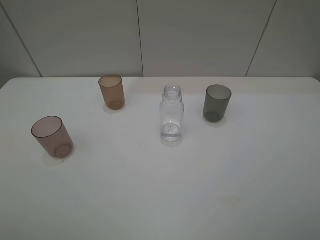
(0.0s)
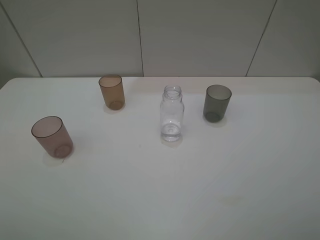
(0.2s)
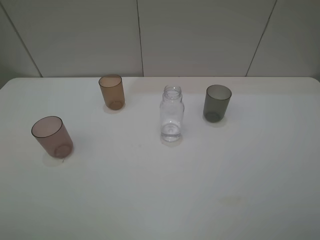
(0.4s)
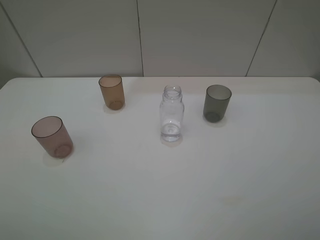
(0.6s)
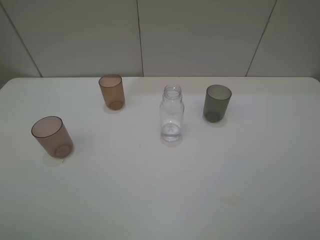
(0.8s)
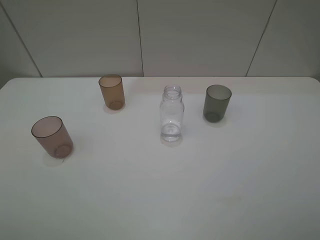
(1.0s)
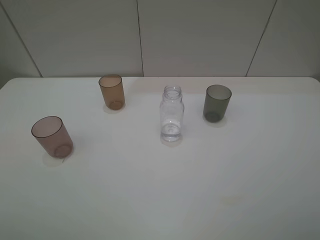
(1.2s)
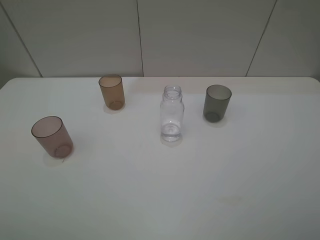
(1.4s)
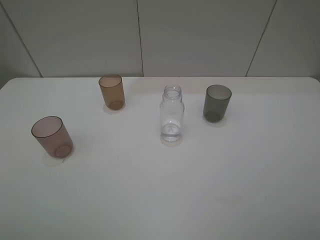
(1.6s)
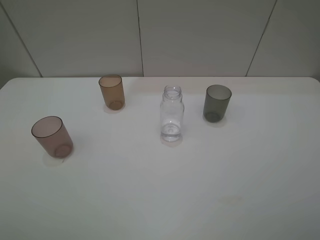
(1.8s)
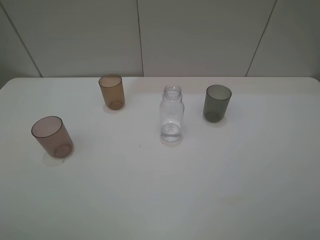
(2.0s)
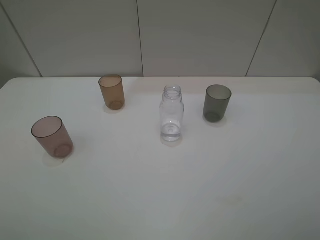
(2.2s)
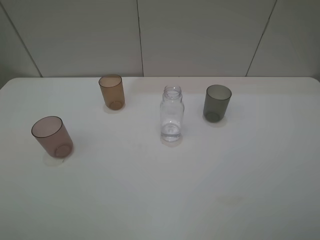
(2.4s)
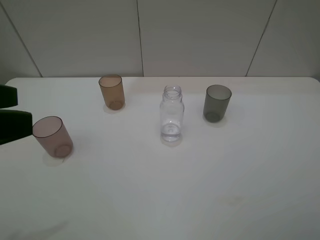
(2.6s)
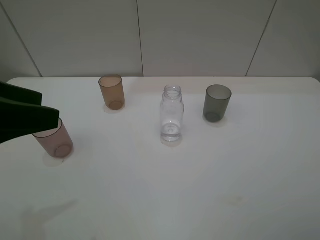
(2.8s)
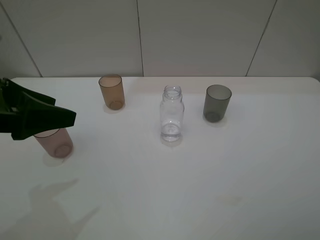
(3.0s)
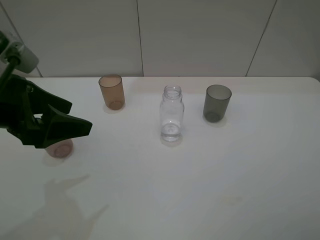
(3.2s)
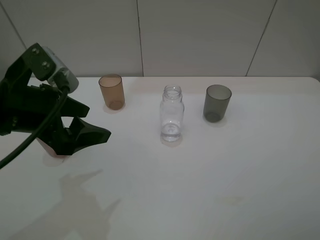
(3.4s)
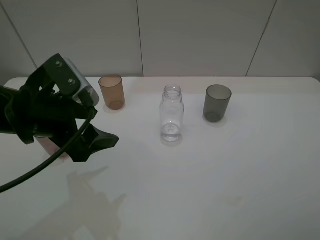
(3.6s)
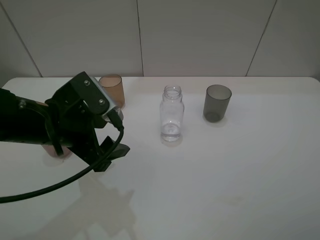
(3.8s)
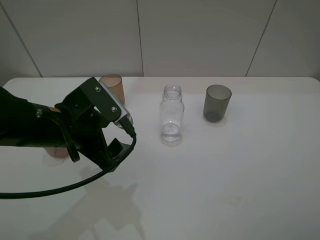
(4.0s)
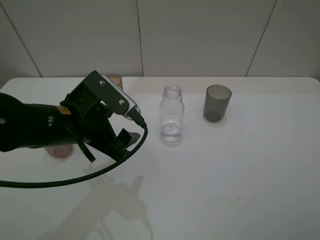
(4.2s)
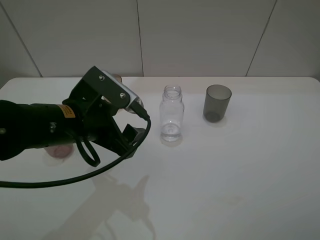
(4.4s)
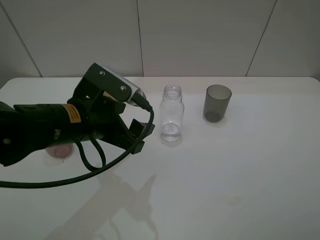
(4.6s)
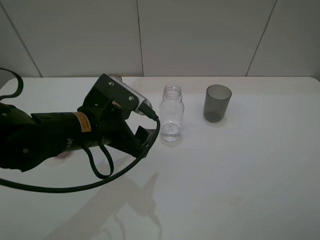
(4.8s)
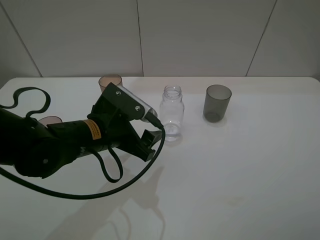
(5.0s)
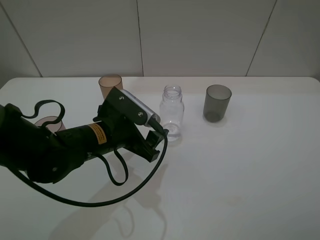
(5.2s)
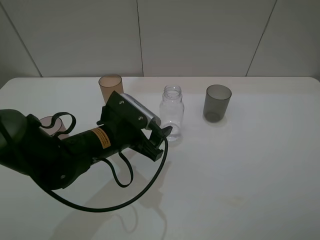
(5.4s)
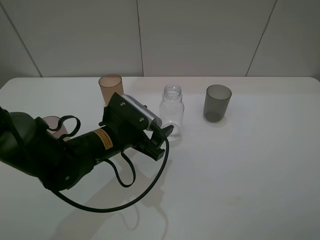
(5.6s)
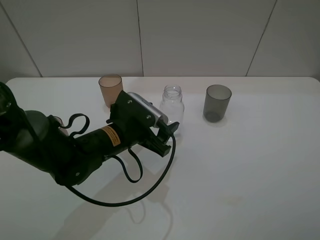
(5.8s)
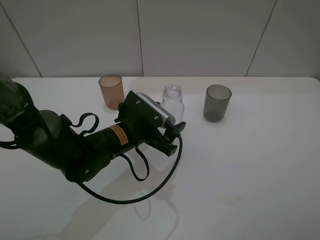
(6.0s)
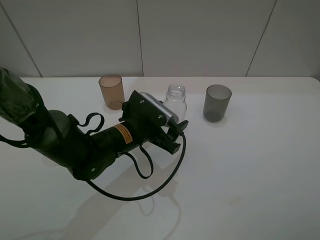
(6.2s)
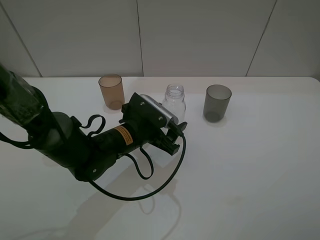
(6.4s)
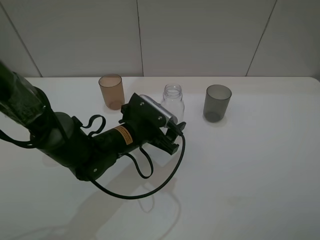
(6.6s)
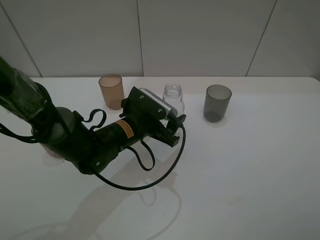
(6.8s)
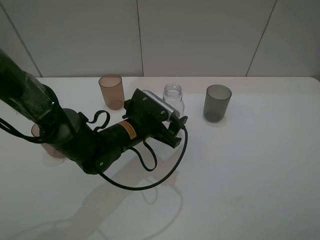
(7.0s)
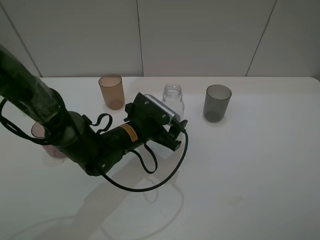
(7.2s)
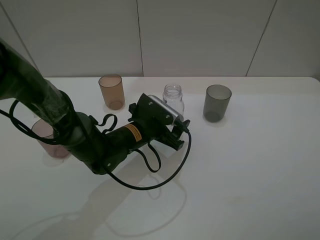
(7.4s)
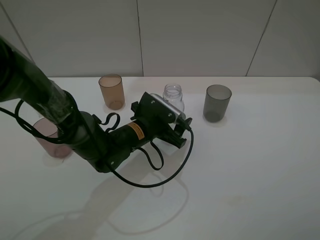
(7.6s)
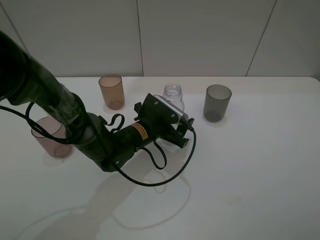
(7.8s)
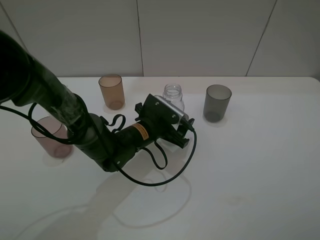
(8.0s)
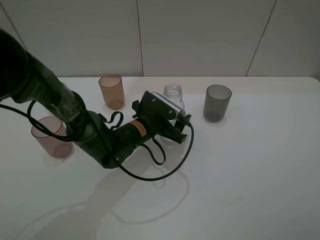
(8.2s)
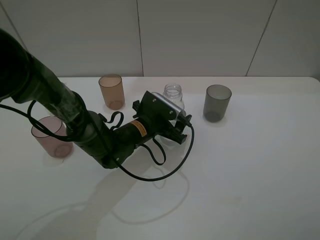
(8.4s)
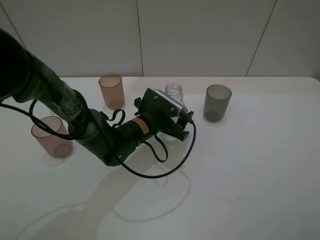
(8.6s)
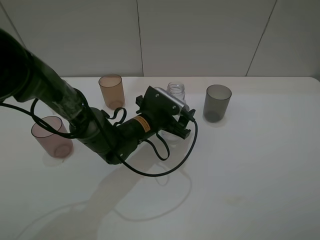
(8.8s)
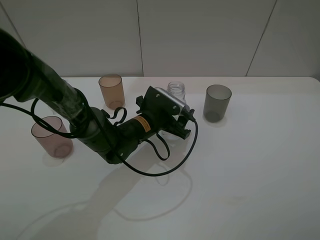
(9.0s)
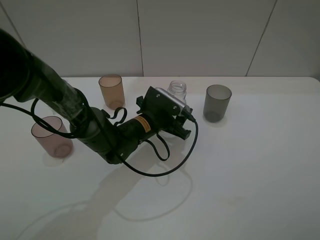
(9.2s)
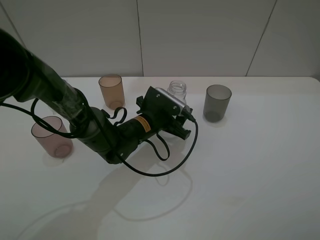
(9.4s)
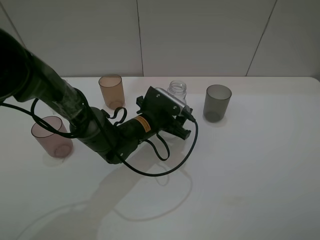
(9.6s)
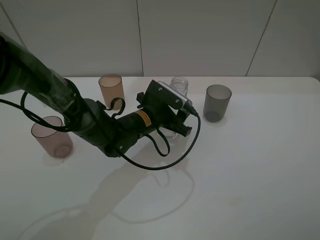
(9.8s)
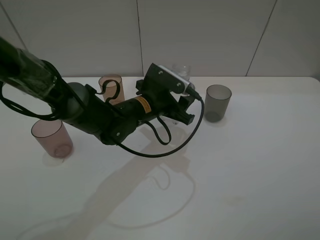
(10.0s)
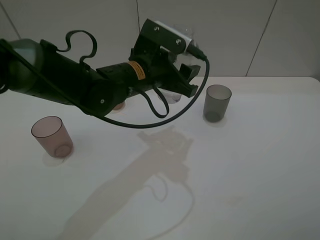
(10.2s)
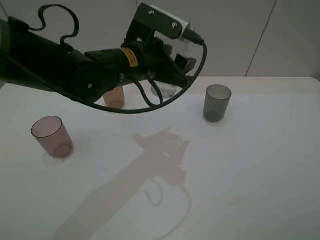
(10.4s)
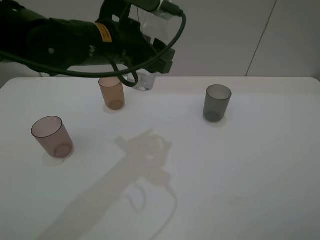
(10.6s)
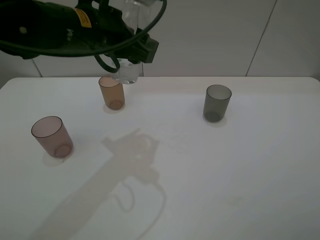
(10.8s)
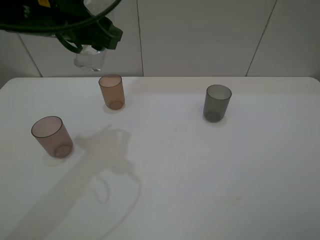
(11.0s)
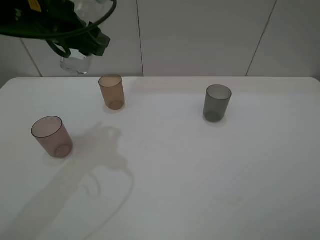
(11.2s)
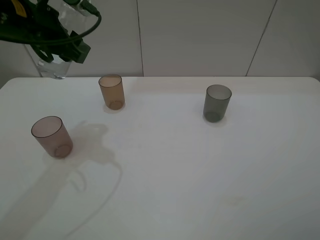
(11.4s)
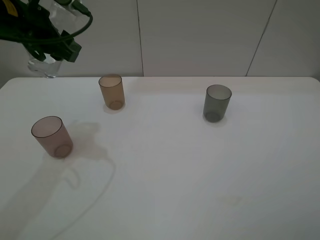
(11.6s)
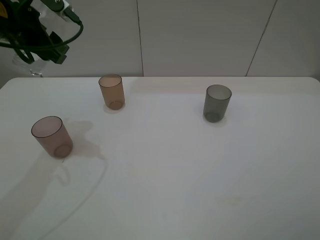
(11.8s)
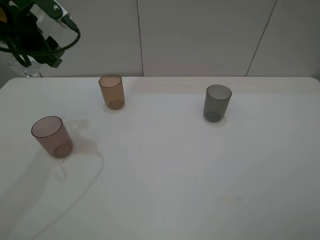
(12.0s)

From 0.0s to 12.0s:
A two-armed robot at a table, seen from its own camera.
Task of the whole recording: pick up the bottle filled with water and pour water into the middle cup of the three cups.
Step, from 0.0s to 8.4s: Grasp the transparent bottle with the left gripper.
From 0.0s to 1.6s: Neither gripper changes place.
From 1.6s to 3.0s: The left gripper moves forward, roughly 20 cm.
From 3.0s to 4.4s: The left gripper travels to the right and downward by roughly 15 cm.
From 4.4s to 6.0s: The left gripper shifts about 10 cm downward and to the right.
From 6.0s to 7.6s: The left gripper shifts by about 5 cm.
From 7.6s to 9.0s: The left gripper closes up.
From 9.0s to 10.4s: The left gripper travels upward by about 15 cm, and closes up.
From 10.4s to 12.0s: The left gripper is displaced to the left by approximately 20 cm.

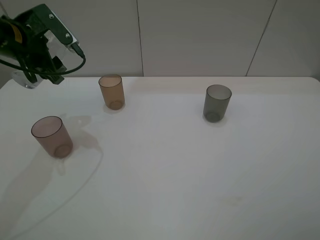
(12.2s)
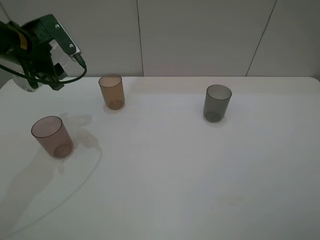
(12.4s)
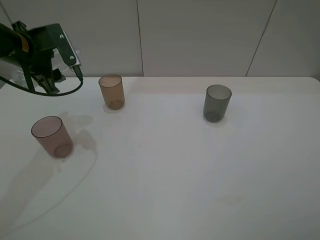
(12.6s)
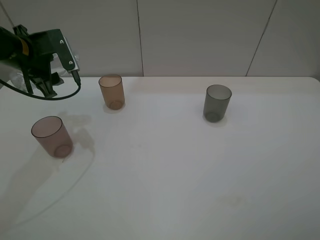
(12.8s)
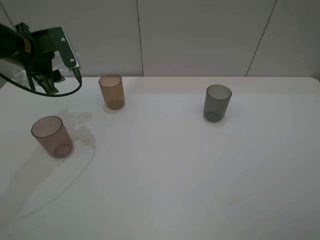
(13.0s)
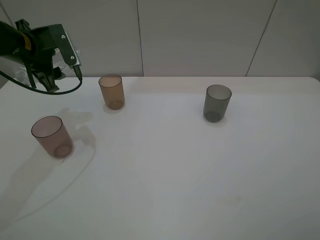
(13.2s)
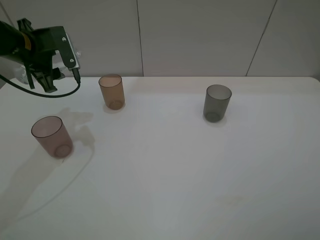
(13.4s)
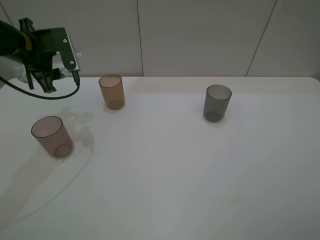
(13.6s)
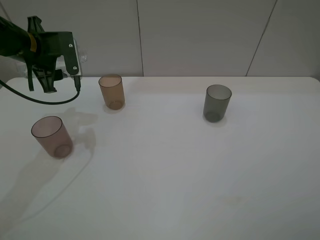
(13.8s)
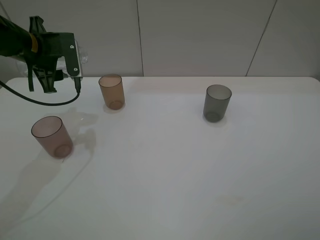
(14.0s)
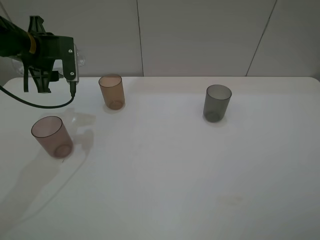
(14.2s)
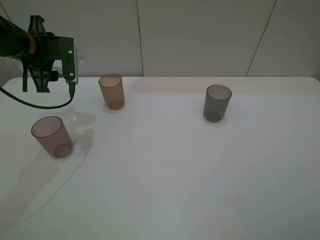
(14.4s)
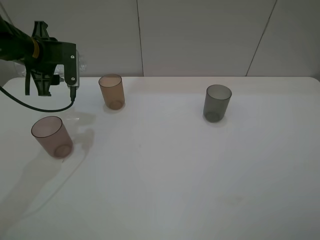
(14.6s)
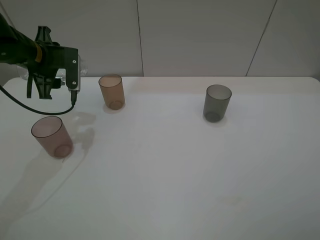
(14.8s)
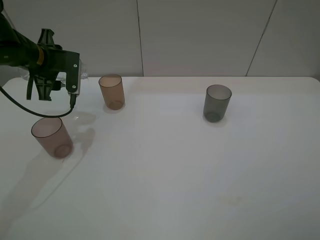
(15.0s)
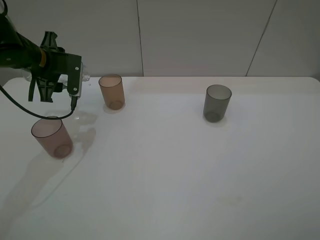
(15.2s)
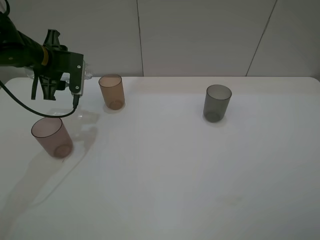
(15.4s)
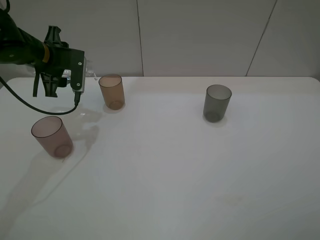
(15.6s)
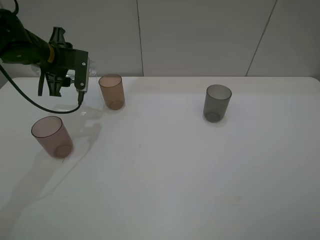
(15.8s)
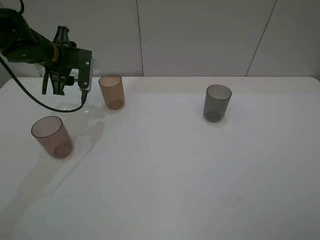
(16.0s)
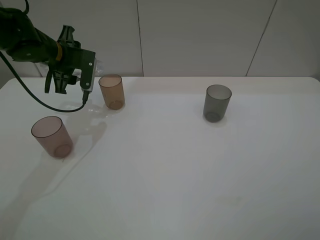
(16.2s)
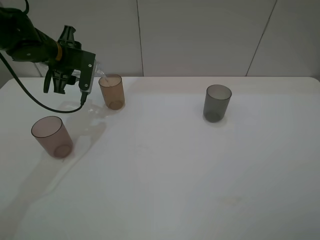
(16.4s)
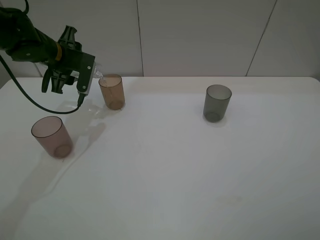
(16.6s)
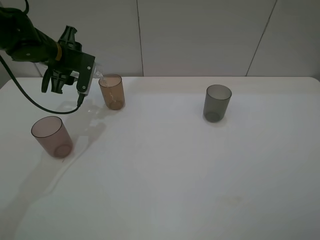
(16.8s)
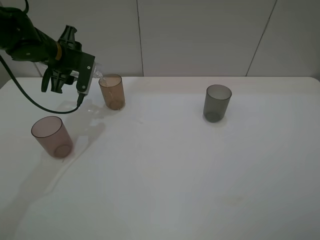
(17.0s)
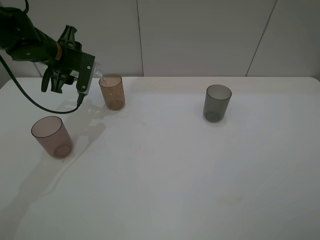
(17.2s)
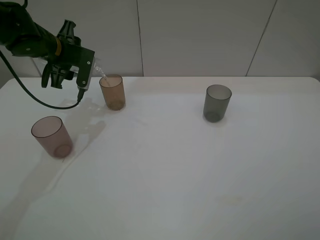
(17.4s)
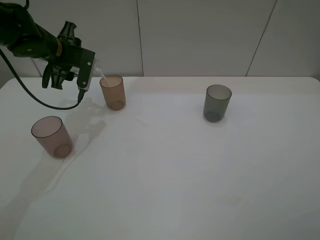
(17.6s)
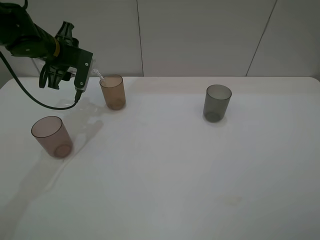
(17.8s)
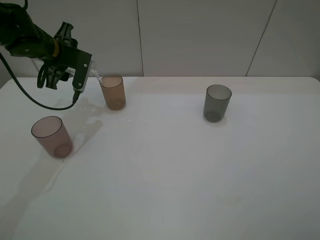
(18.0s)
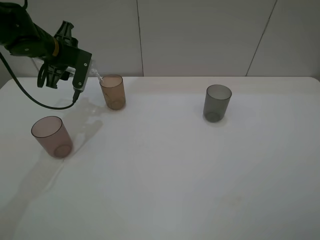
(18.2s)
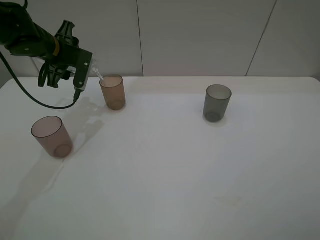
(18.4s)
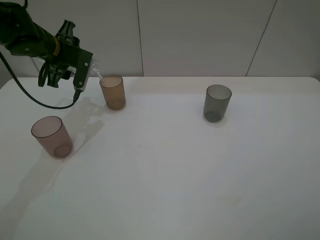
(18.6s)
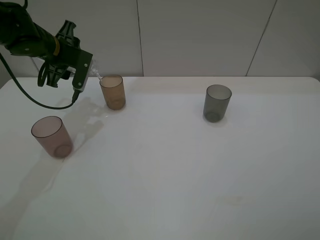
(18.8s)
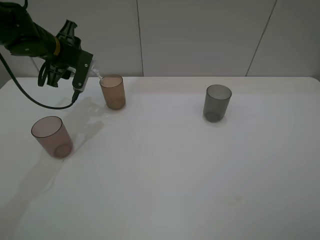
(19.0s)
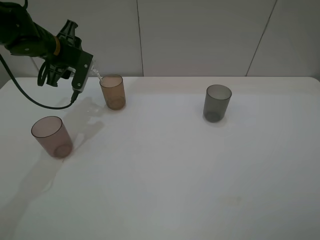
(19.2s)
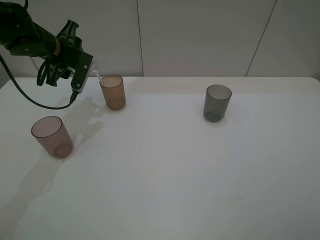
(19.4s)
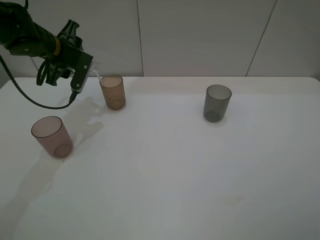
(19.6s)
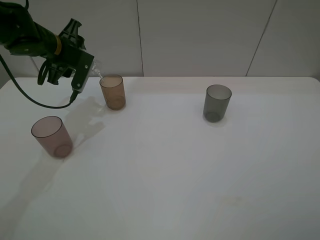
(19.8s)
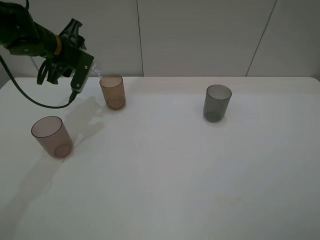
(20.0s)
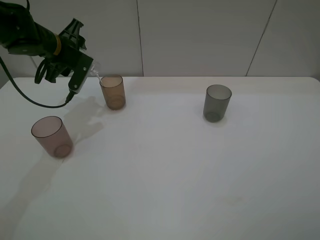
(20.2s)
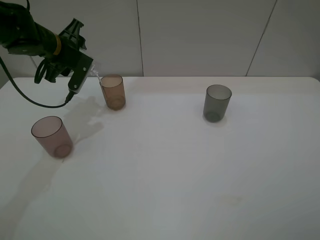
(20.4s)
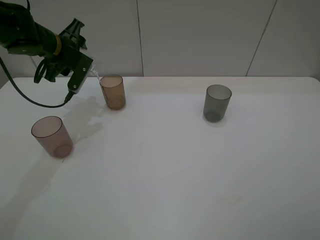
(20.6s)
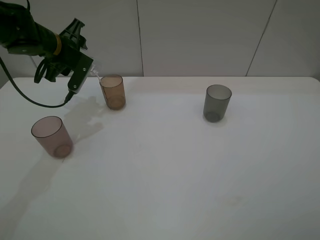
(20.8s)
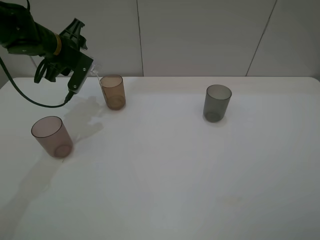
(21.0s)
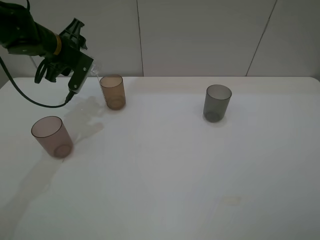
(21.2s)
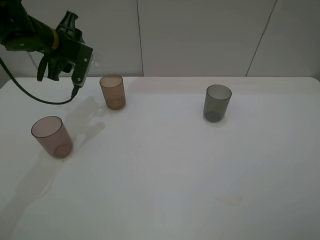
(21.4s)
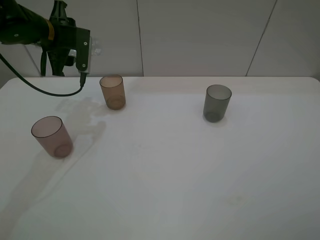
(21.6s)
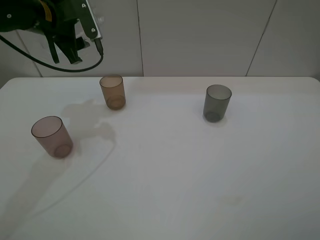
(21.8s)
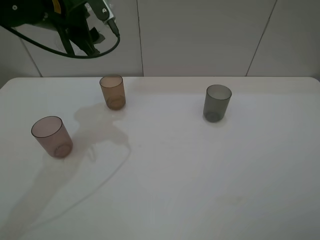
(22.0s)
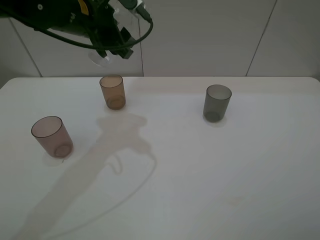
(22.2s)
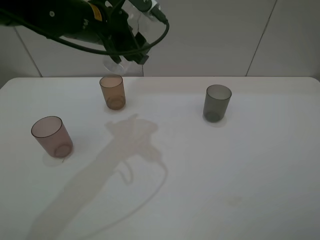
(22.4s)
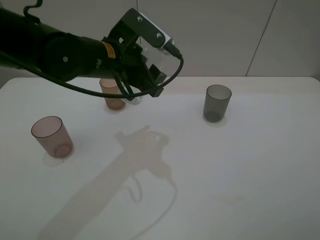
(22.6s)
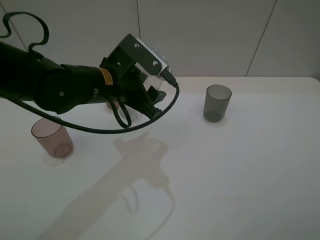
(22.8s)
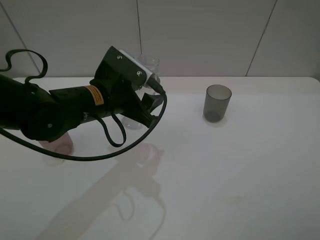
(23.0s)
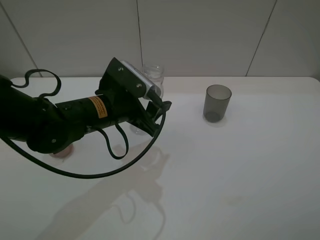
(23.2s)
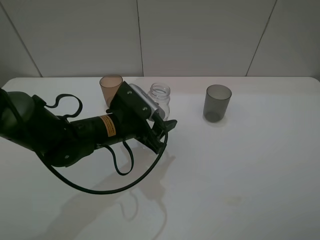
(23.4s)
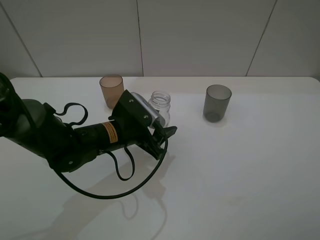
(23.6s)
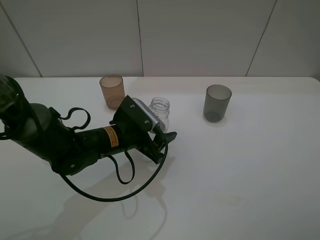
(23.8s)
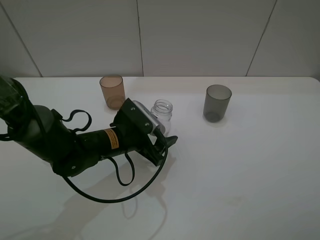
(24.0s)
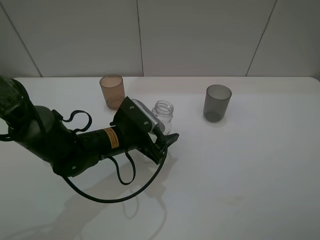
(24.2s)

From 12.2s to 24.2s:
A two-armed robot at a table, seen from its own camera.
Task of the whole recording: pick up the bottle filled with water and pour water into the middle cup of the three cups.
Step, from 12.2s to 15.4s: Pour water from transparent bottle to brown cup with the left gripper.
From 13.8s to 15.2s: The grippers move only a little.
From 15.2s to 16.6s: The grippers move only a little.
From 16.6s to 18.2s: Neither gripper changes place.
From 18.2s to 21.2s: The grippers make only small movements.
From 21.2s to 22.6s: The left gripper is displaced to the right and backward by some 20 cm.
From 22.6s to 24.2s: The left gripper moves downward, roughly 15 cm, and opens.
